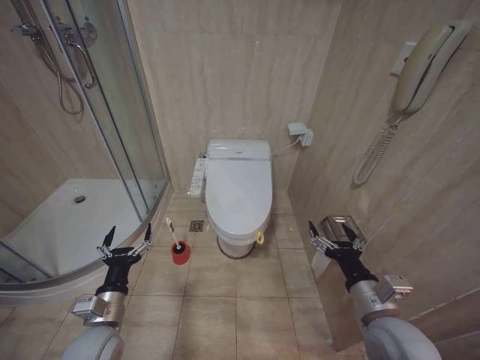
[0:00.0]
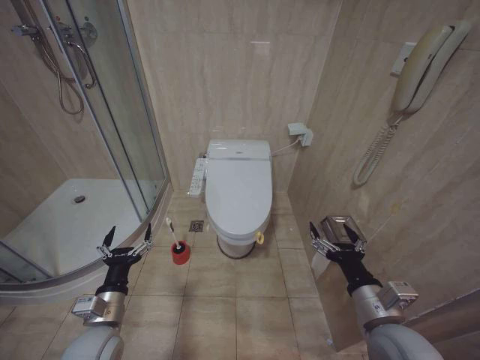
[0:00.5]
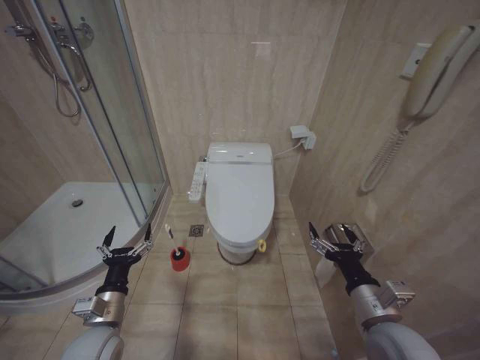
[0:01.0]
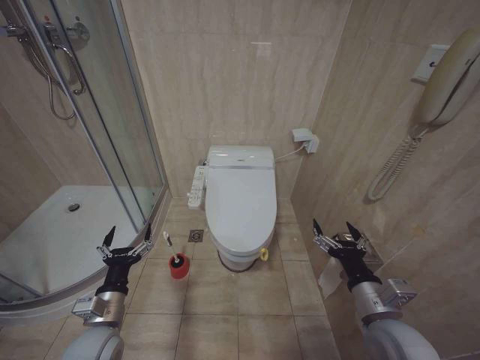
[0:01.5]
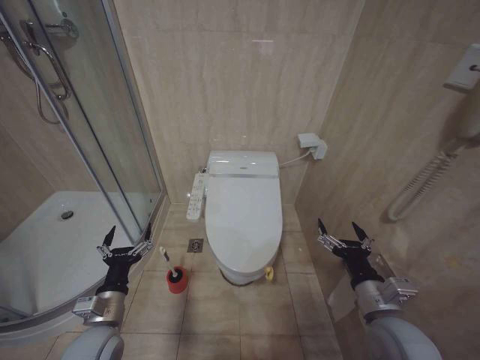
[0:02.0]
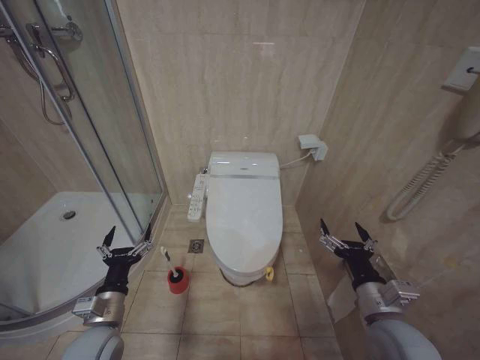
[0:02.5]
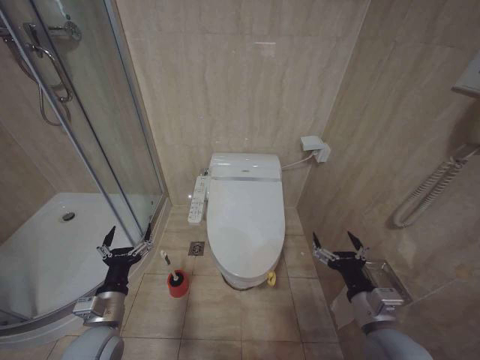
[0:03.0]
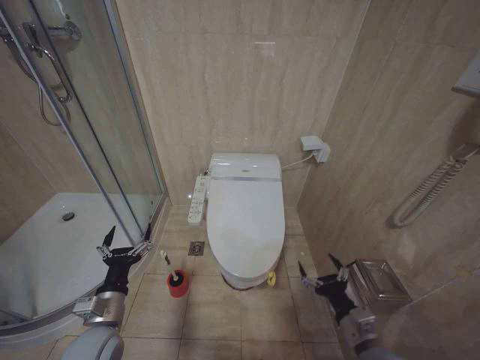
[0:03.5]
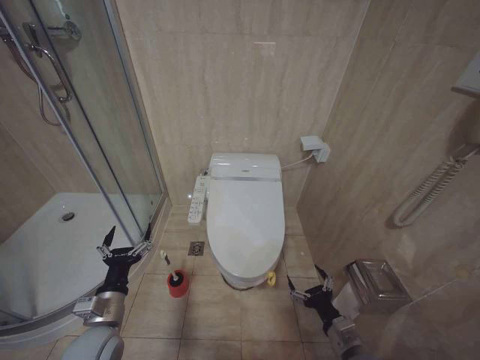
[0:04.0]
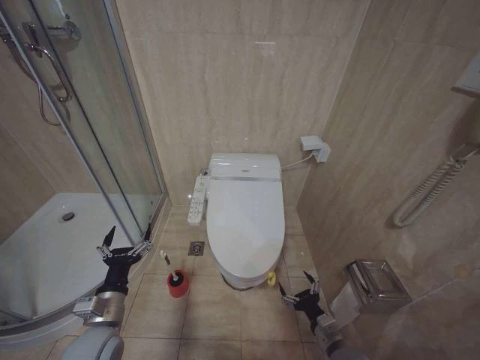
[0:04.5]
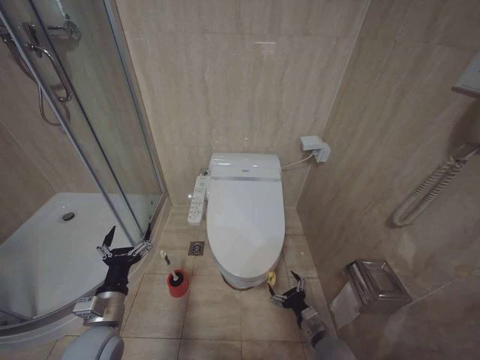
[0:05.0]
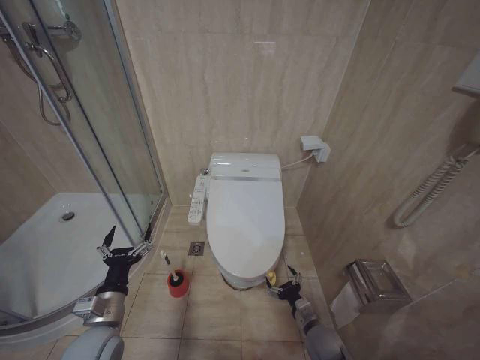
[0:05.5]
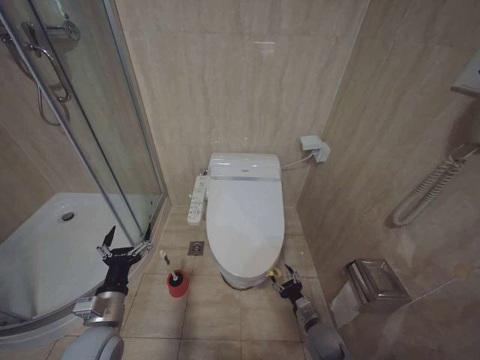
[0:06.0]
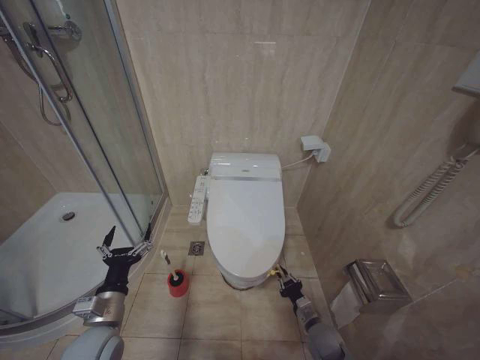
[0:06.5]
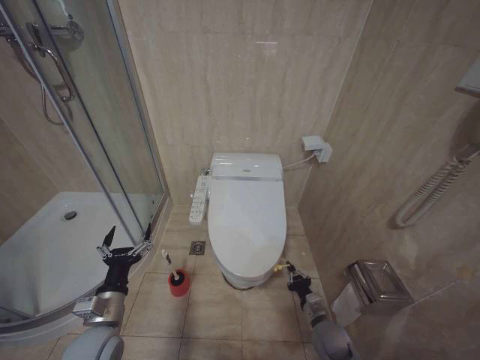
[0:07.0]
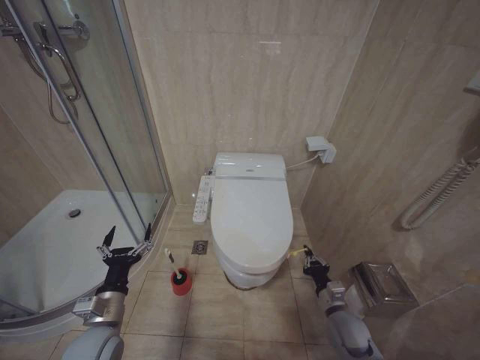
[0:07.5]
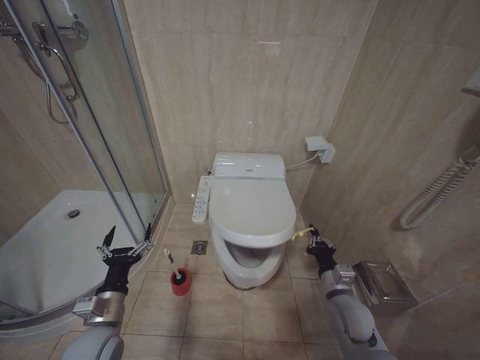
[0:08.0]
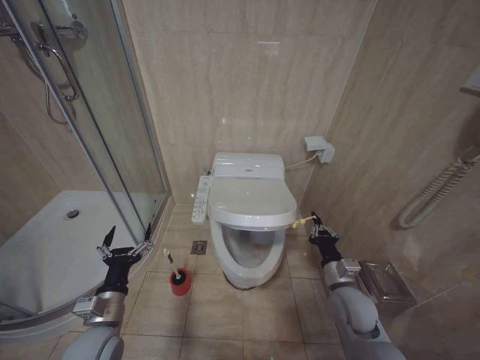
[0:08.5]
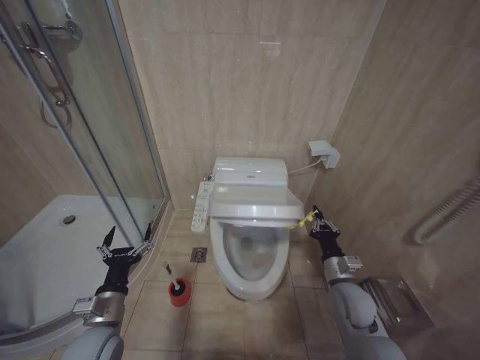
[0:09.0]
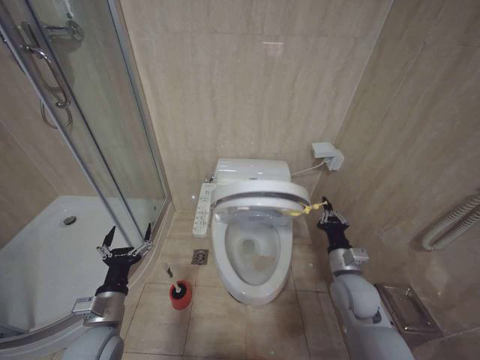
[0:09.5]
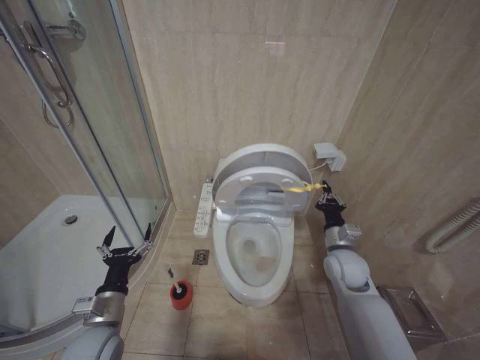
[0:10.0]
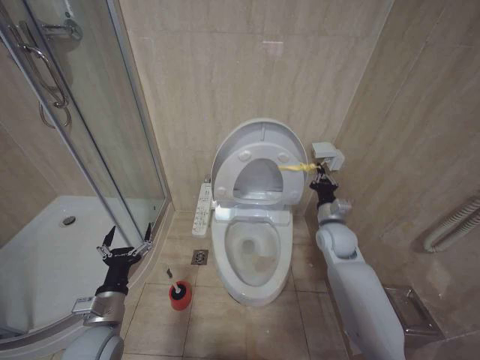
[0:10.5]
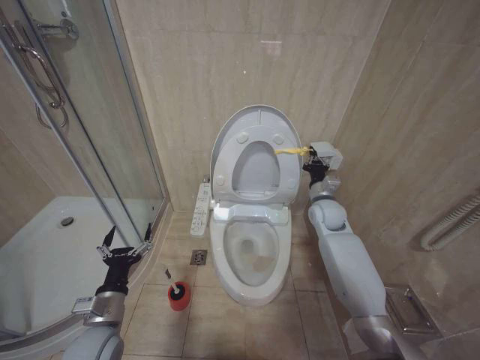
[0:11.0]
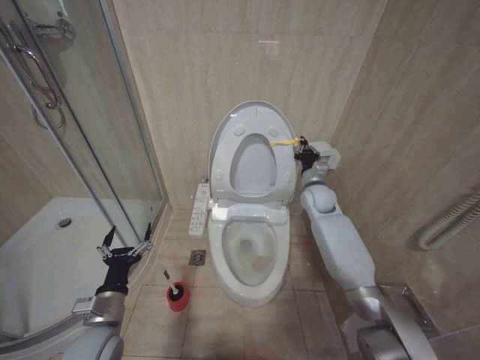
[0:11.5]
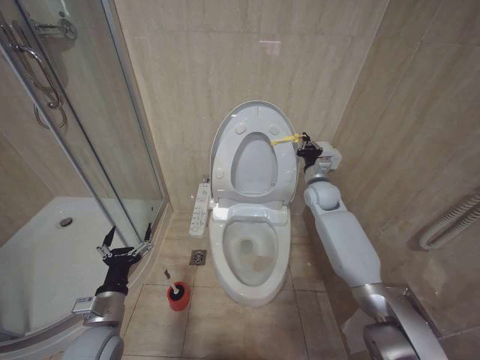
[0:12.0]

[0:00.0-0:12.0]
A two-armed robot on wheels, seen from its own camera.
Task of the whole recording: Open the toilet lid, clean the toilet bowl with a toilet brush, close the toilet lid, and flush.
0:02.0 to 0:04.0: The right gripper travels downward by about 15 cm.
0:04.0 to 0:06.0: The right gripper moves downward and forward, about 15 cm.
0:06.0 to 0:08.0: The right gripper shifts some 15 cm upward, and closes.
0:08.0 to 0:10.0: The right gripper heads forward and upward, covering some 10 cm.
0:10.0 to 0:12.0: The right gripper is displaced forward and upward by roughly 20 cm.

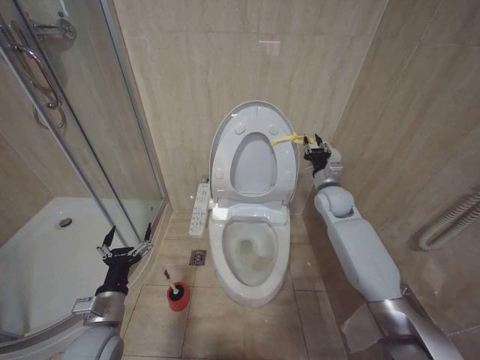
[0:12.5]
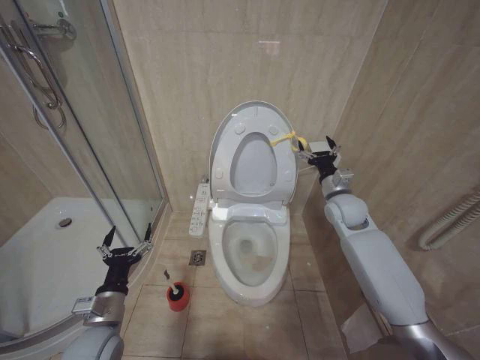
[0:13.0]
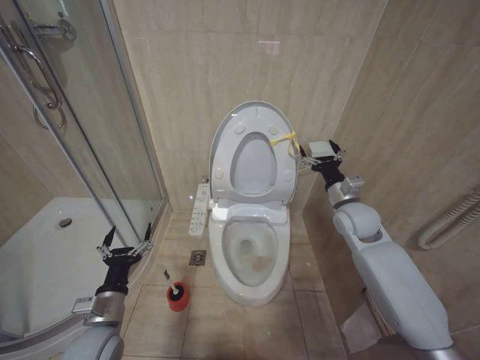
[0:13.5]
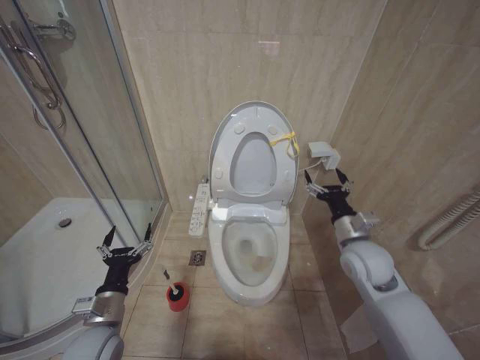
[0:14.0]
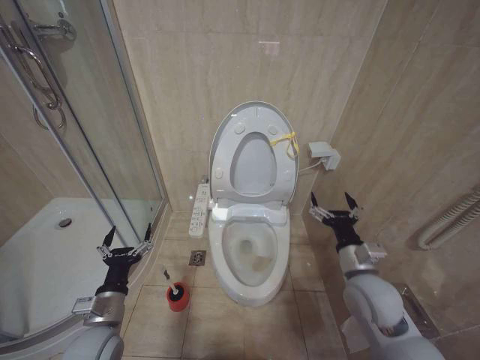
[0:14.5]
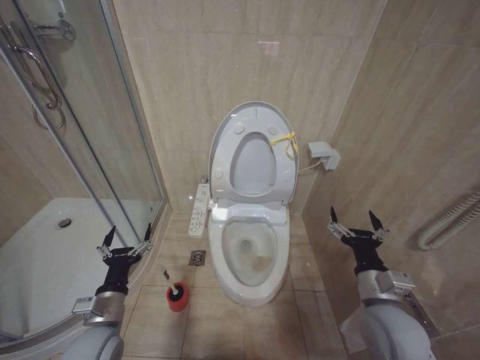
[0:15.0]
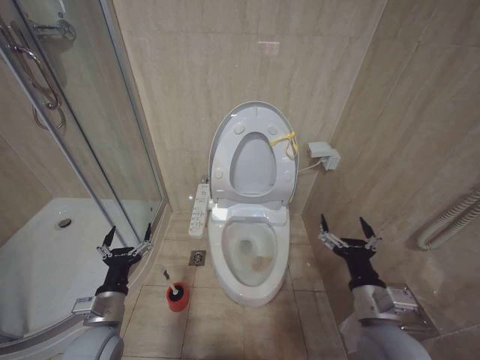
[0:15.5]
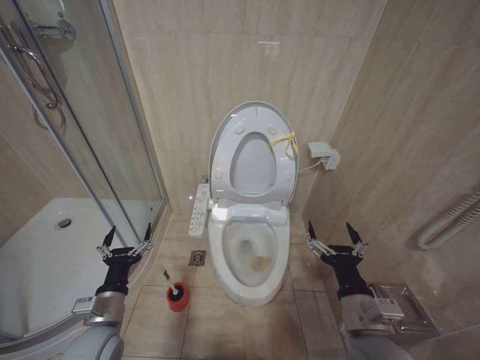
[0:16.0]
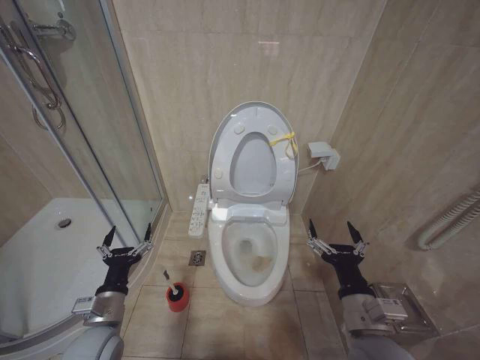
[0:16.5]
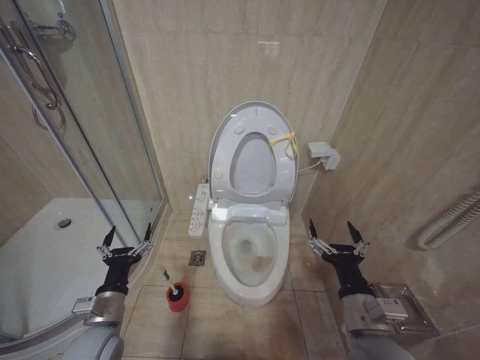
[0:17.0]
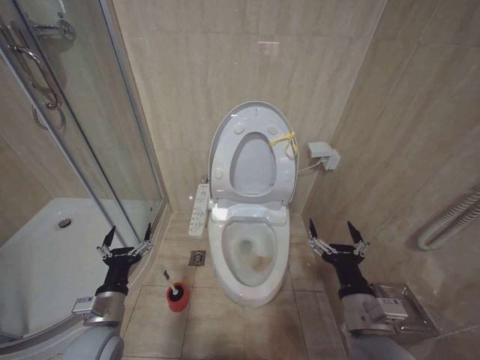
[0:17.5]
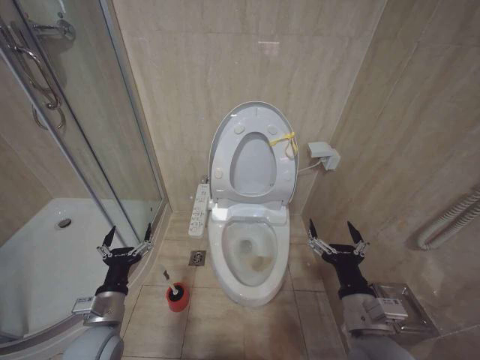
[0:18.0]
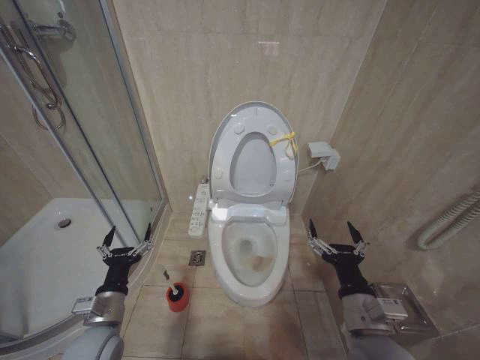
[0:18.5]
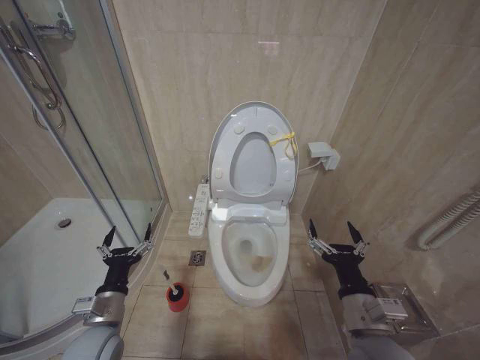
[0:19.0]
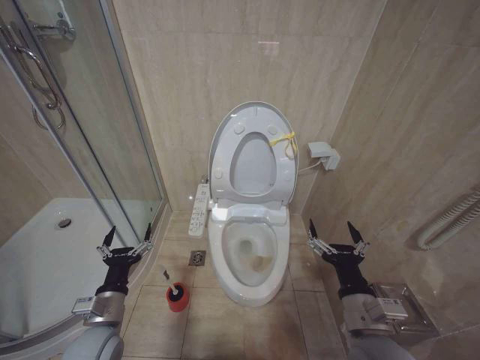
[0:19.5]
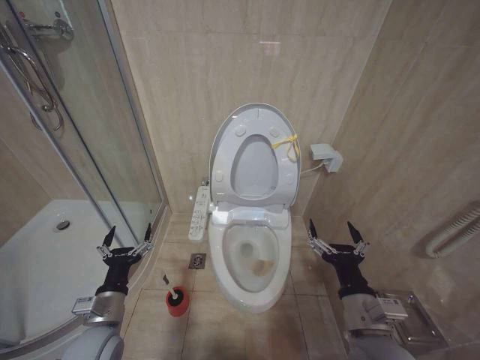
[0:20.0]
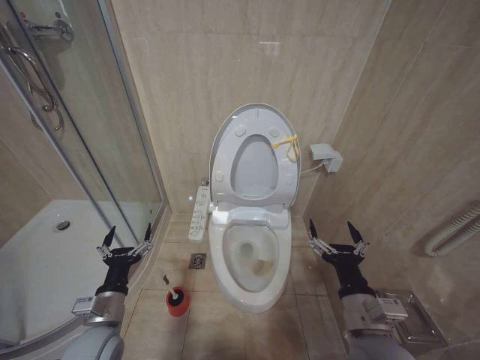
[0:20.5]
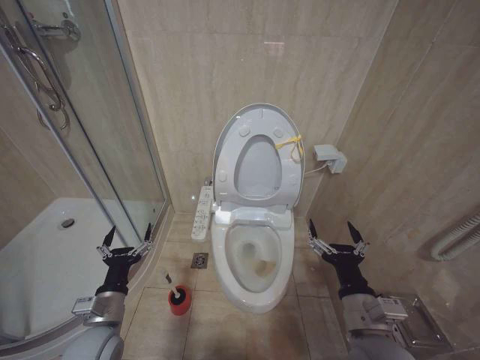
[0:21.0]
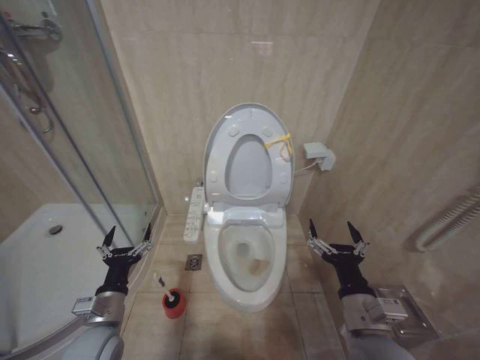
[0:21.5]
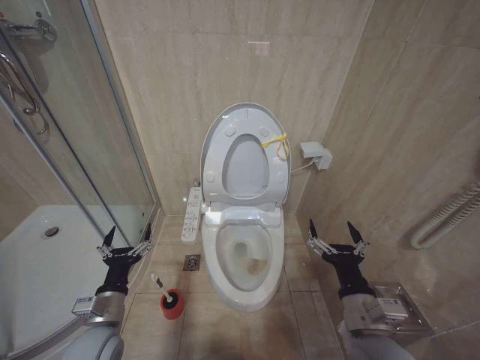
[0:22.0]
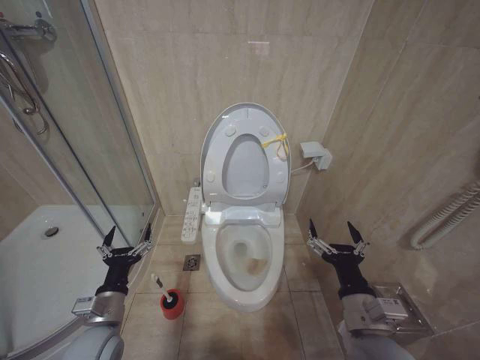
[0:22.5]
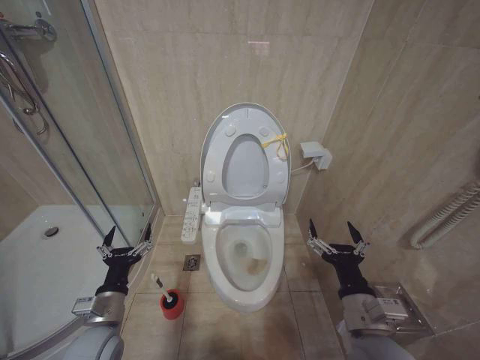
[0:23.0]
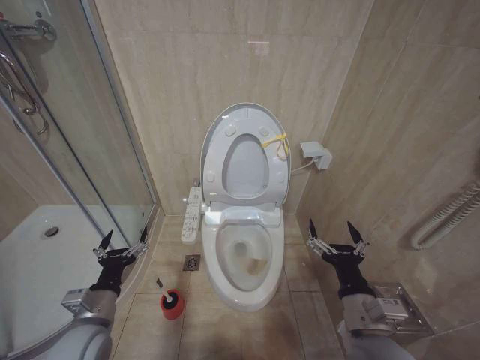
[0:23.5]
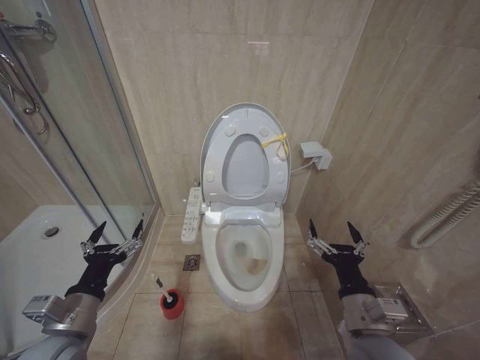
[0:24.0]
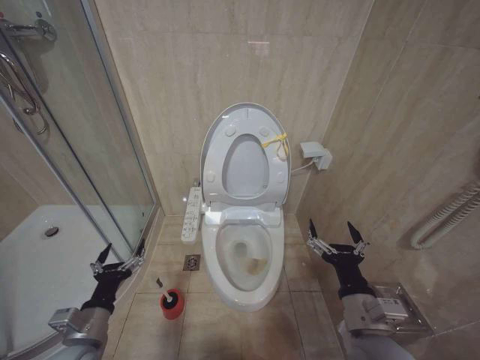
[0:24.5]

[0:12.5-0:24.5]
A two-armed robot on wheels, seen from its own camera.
Task of the whole recording: Open the toilet lid, clean the toilet bowl with a toilet brush, close the toilet lid, and flush.
0:12.5 to 0:14.5: The right gripper travels backward by roughly 25 cm, and opens up.
0:14.5 to 0:16.5: The right gripper is displaced backward by approximately 10 cm.
0:16.5 to 0:22.5: The two grippers keep their place.

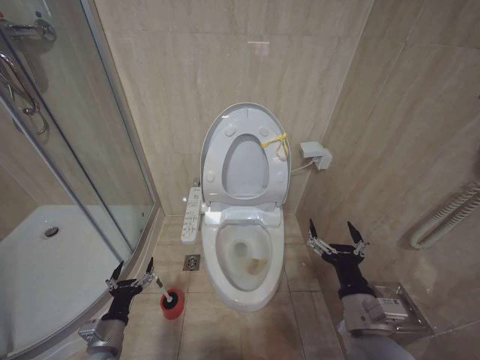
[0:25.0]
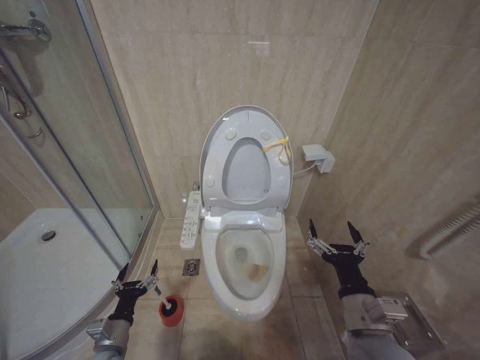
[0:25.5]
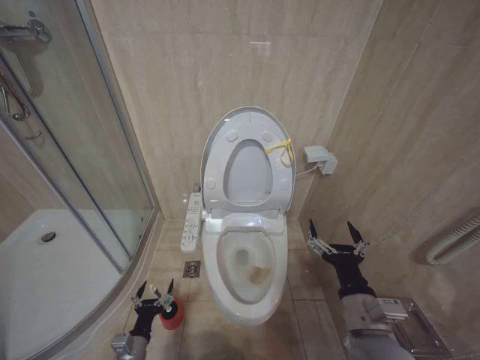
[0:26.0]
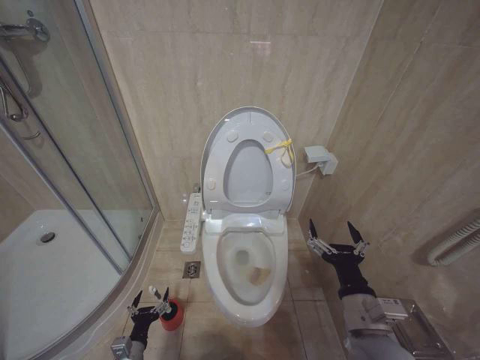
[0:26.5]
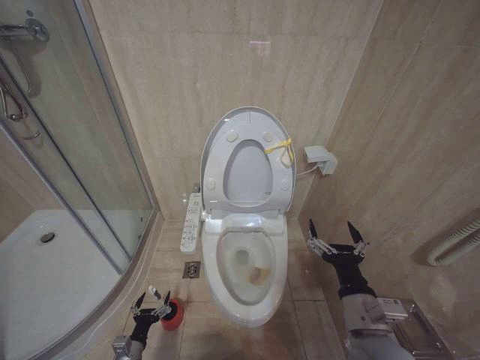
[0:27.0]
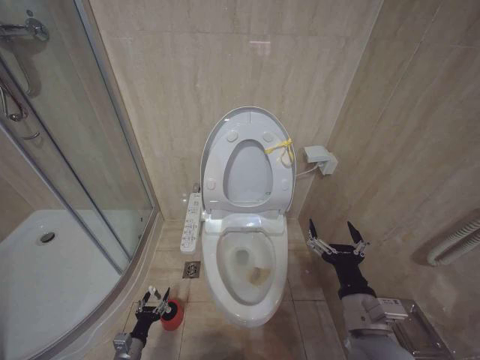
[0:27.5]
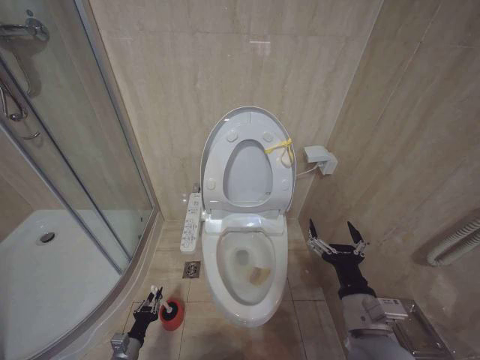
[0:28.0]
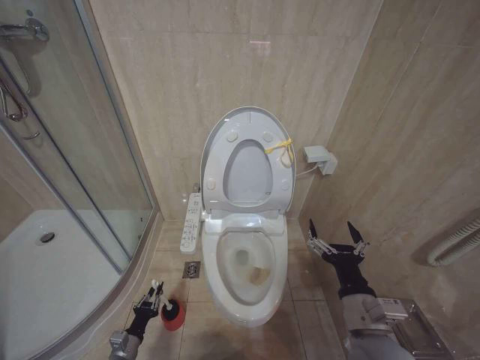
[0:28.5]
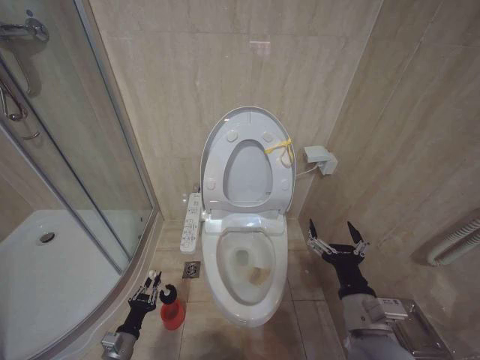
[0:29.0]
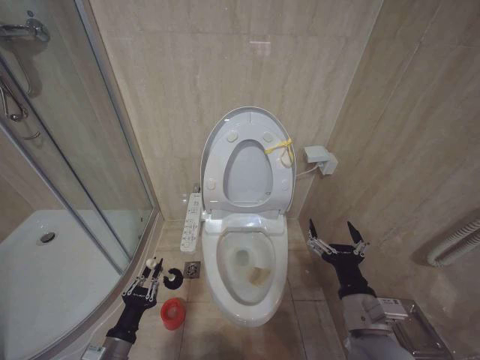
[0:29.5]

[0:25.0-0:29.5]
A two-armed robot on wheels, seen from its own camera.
Task of the whole recording: Open the toilet lid, clean the toilet bowl with a toilet brush, close the toilet lid, and flush.
0:25.0 to 0:27.0: The left gripper shifts about 15 cm downward.
0:27.0 to 0:29.5: The left gripper travels upward by roughly 15 cm, and closes up.
